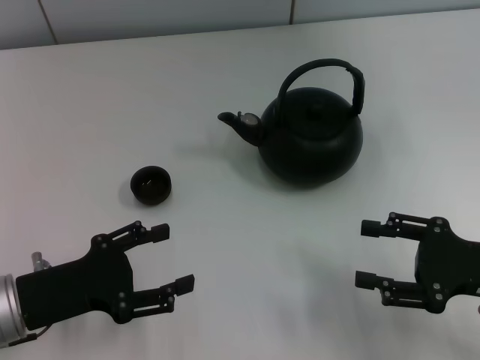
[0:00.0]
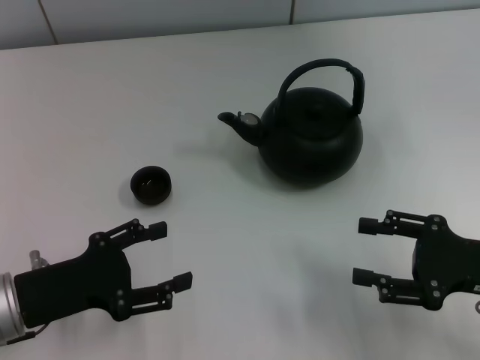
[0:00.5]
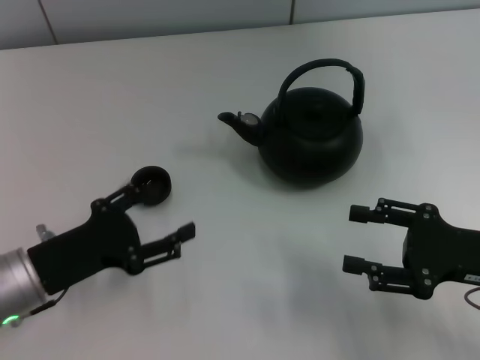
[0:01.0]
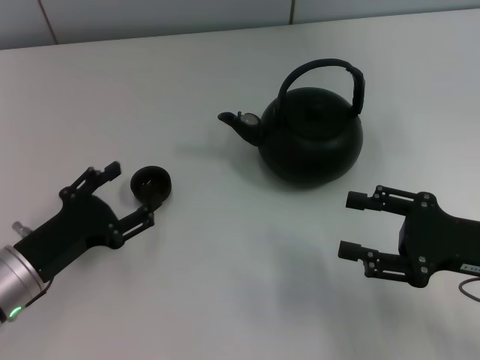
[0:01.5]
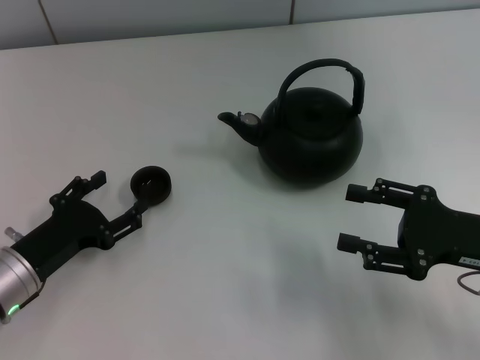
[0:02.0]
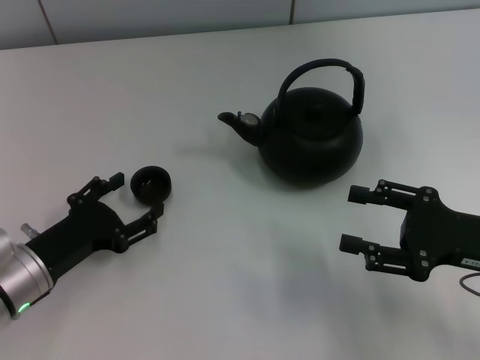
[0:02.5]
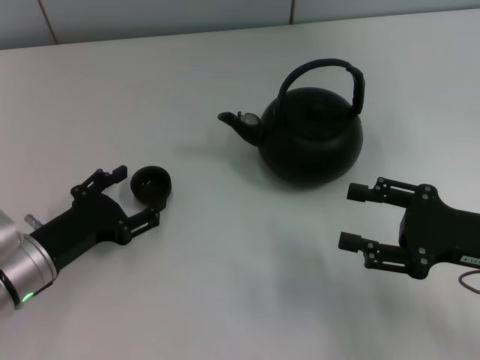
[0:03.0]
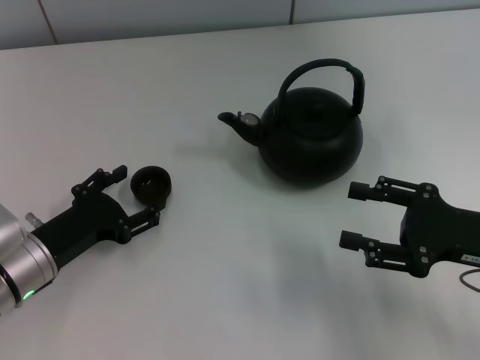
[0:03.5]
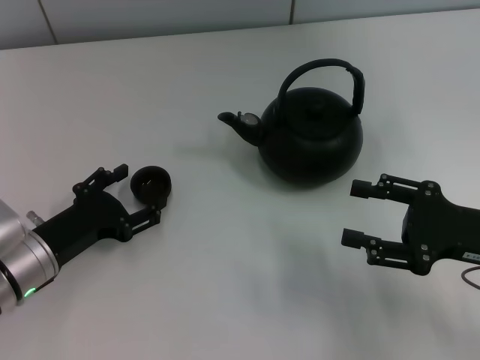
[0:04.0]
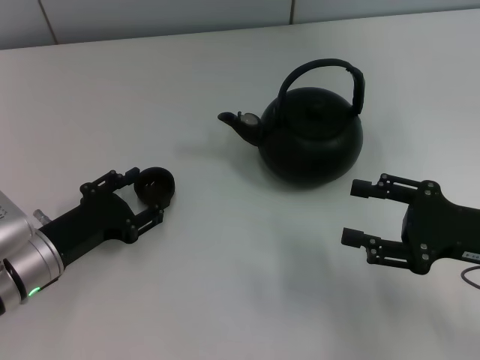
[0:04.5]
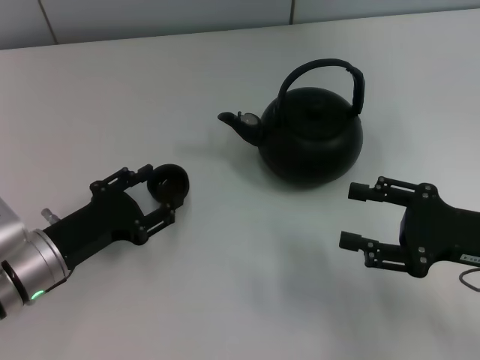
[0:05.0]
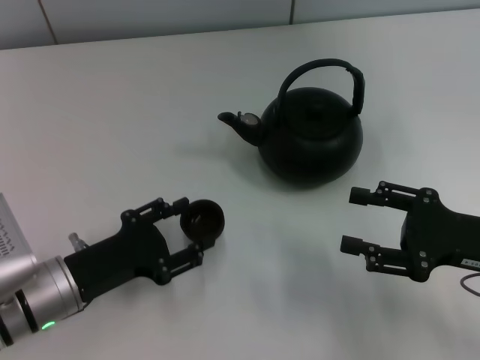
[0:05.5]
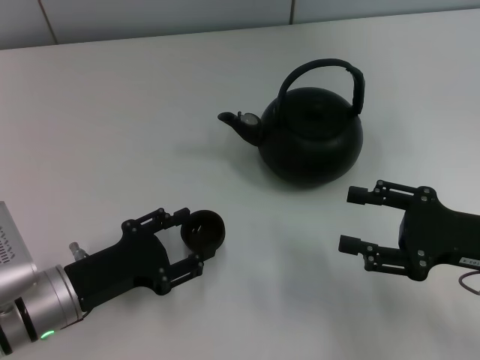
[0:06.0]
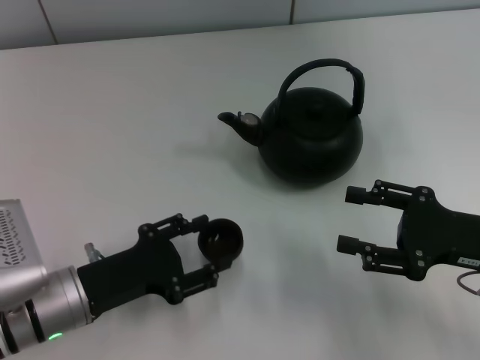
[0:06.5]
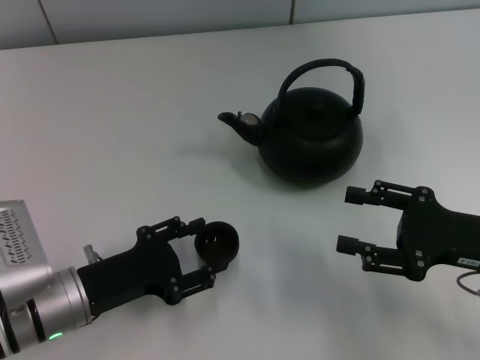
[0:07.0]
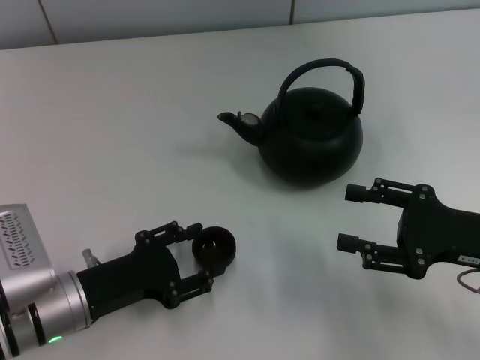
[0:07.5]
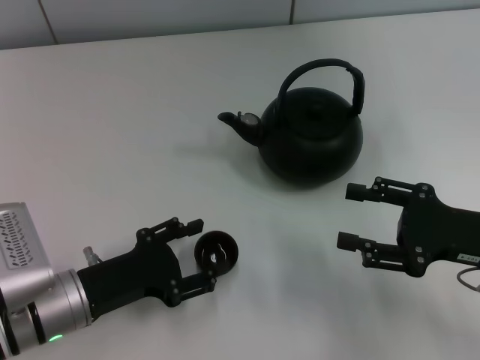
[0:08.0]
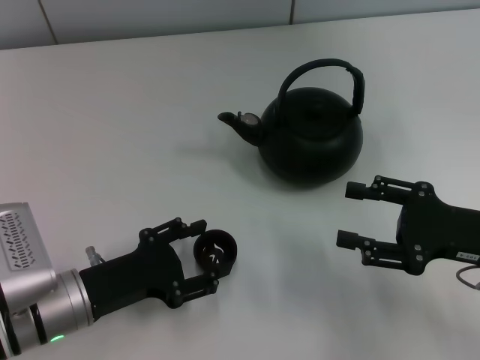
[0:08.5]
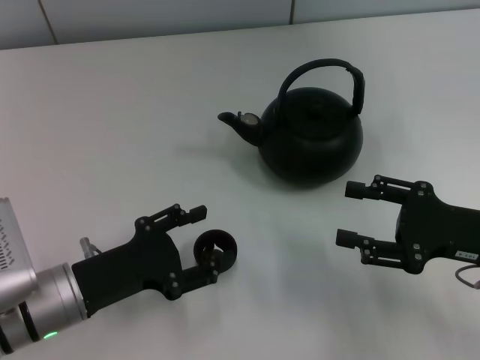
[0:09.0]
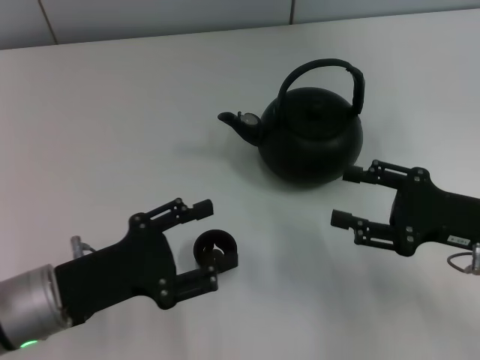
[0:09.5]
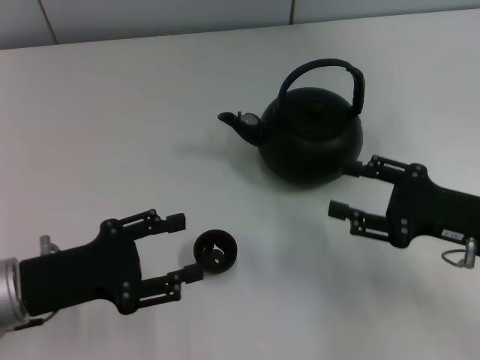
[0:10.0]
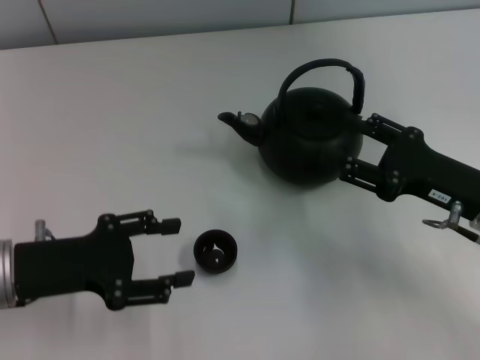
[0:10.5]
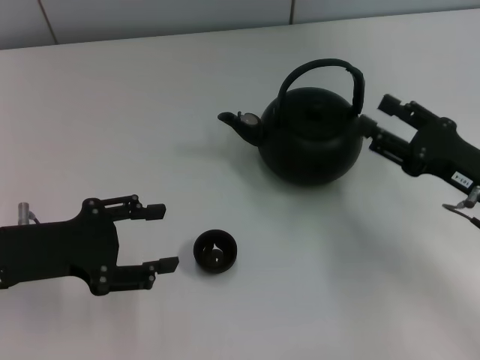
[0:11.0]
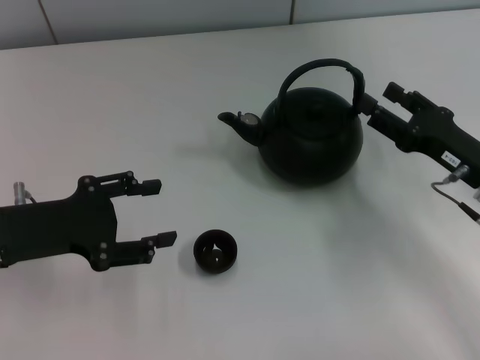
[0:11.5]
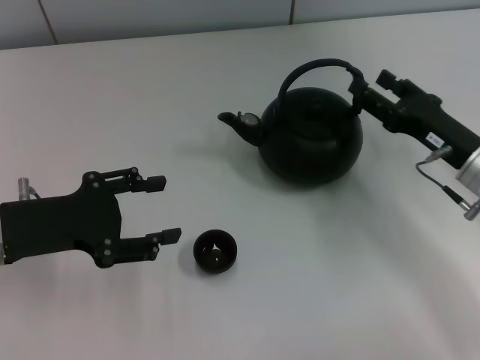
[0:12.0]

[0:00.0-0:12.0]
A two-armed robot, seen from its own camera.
Task of the whole recording: Grasp the handle of the teapot with one hand and pour tea into the teacup.
Step, 0:00.0 to 0:05.0: Pick up the teacup with the left gripper.
Step, 0:05.5 to 0:09.5: Place the teacup in the center of view with the left gripper.
0:00.0 to 0:02.0: The left gripper moves approximately 5 cm.
0:02.0 to 0:04.0: There are only small adjustments of the grippers.
0:04.0 to 0:06.0: The left gripper closes up.
0:06.0 to 0:08.0: The grippers make only small movements.
0:08.0 to 0:10.0: The left gripper shifts approximately 5 cm upward.
0:10.0 to 0:12.0: The left gripper shifts by roughly 5 cm. The right gripper shifts about 5 cm forward.

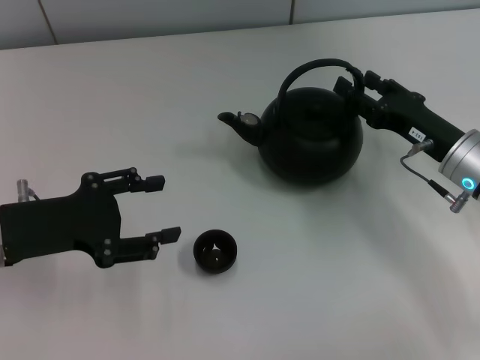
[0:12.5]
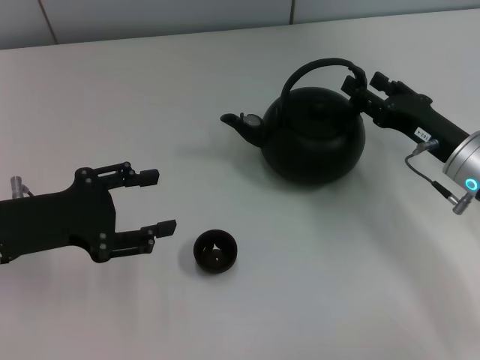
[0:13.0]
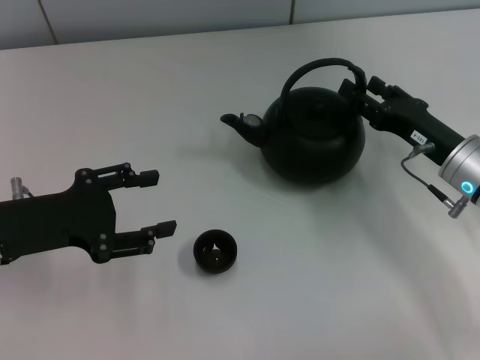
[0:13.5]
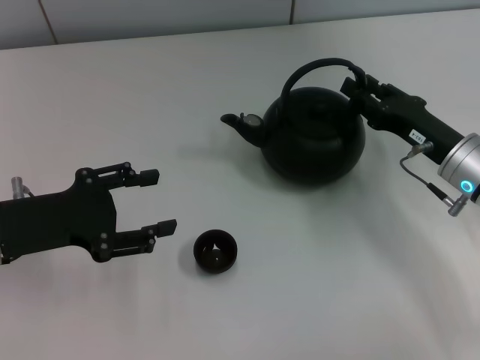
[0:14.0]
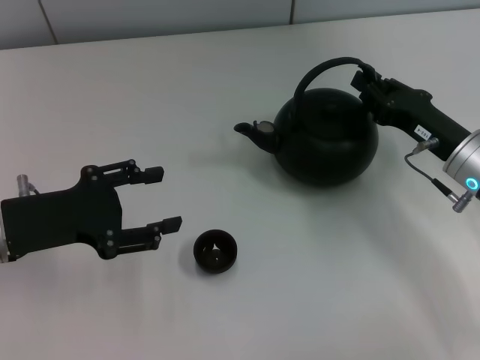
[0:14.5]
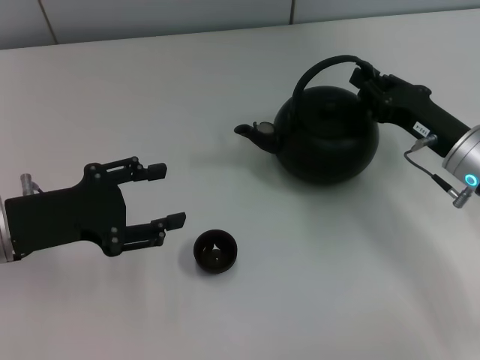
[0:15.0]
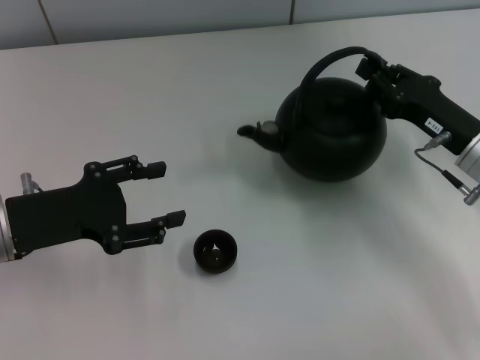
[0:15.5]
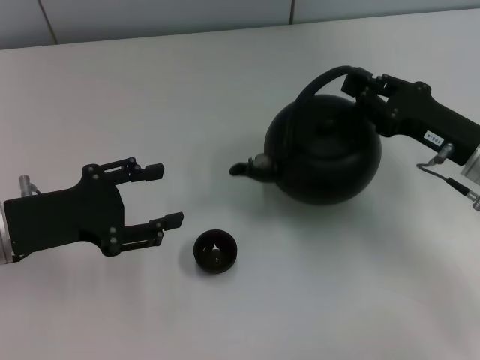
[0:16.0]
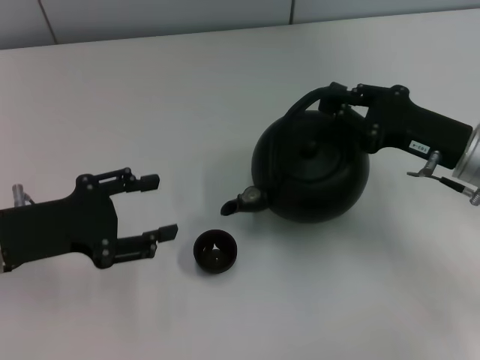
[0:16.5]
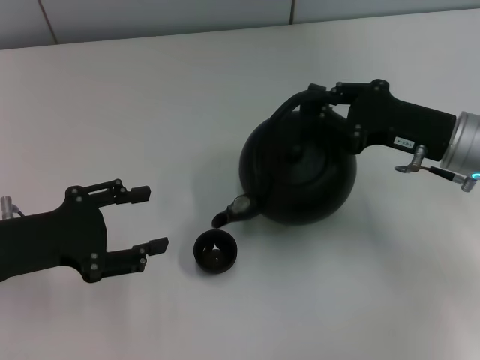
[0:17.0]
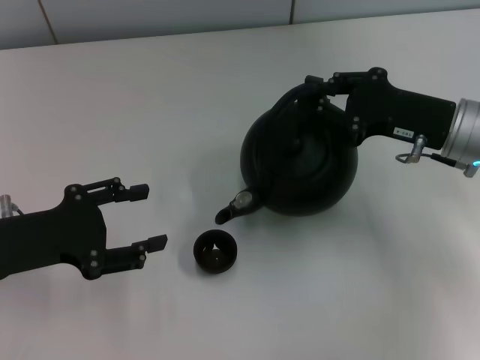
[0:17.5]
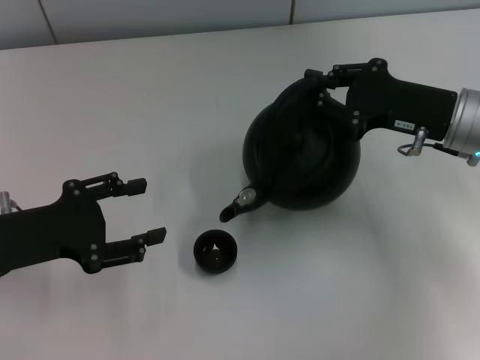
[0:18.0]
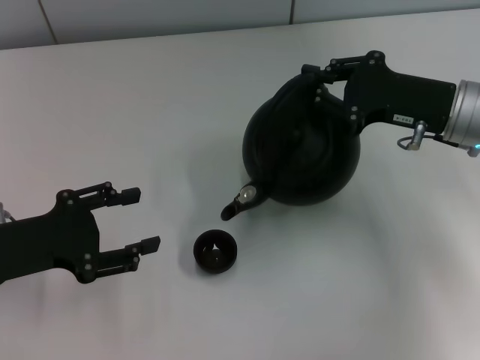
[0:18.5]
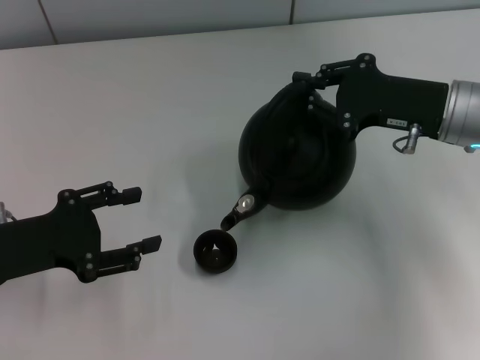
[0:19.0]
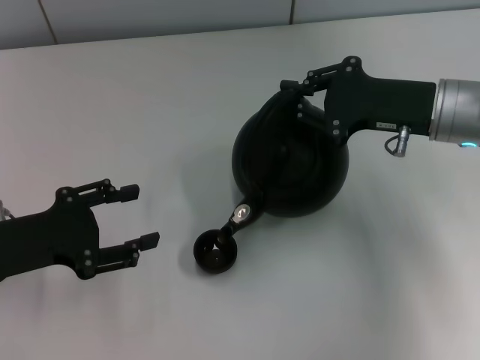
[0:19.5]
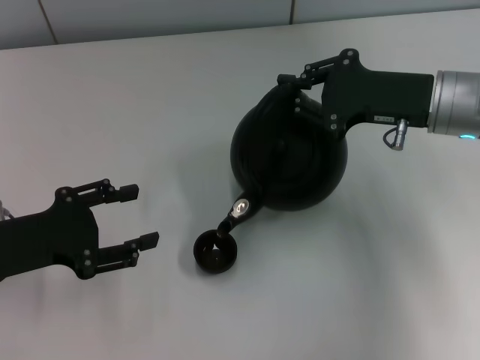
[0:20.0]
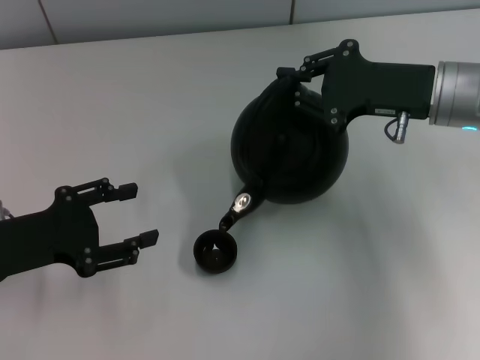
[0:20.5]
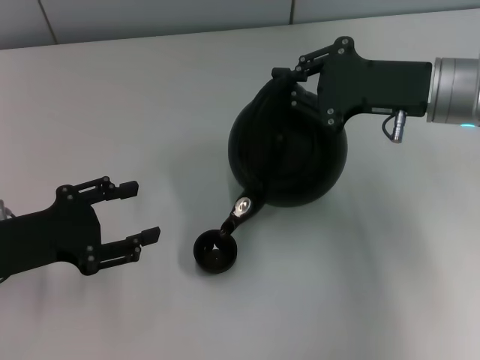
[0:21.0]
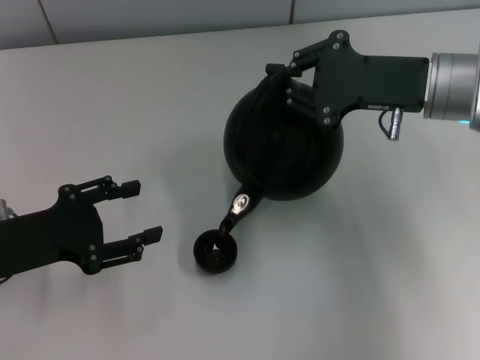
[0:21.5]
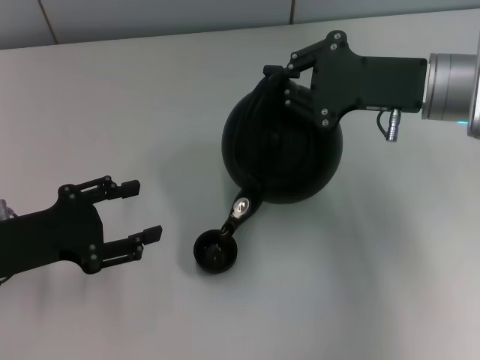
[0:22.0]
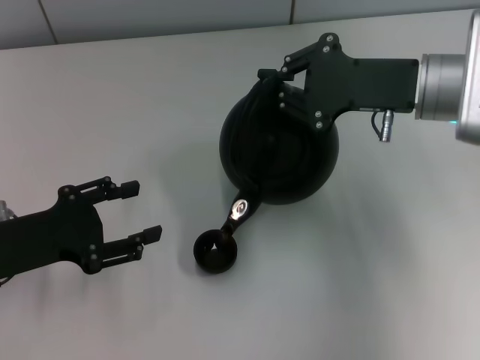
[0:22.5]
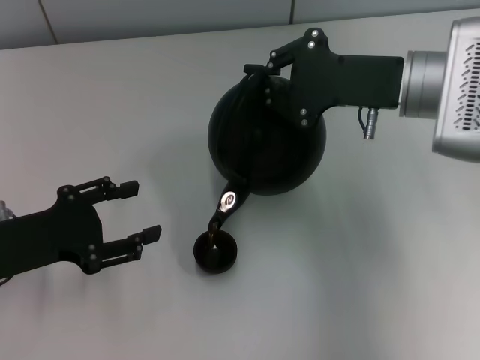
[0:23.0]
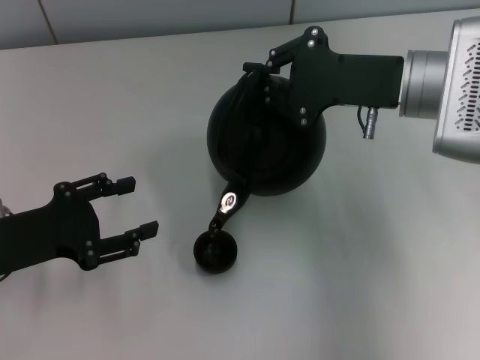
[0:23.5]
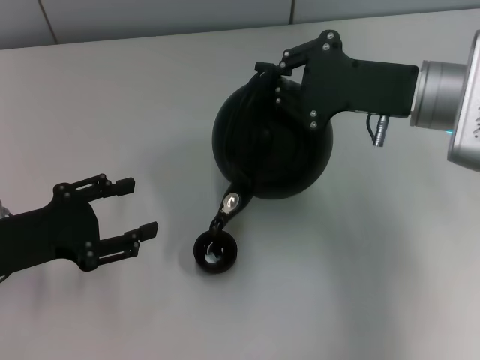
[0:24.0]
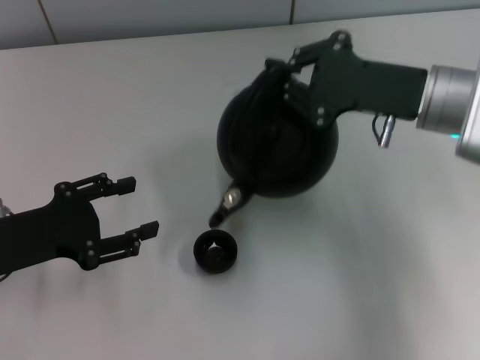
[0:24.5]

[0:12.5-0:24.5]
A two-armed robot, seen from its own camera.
Task of the whole recording: Grasp the handle of the teapot with one hand and pour tea into the teacup.
Step, 0:12.5 to 0:15.5: Pick up the teapot with the right gripper.
0:12.5 to 0:14.5: The right gripper closes its fingers.
0:16.5 to 0:18.5: The right gripper shifts by approximately 5 cm.
0:18.5 to 0:20.5: The grippers make only small movements.
0:20.5 to 0:22.5: The grippers move only a little.
0:22.5 to 0:24.5: The grippers stay close to where they were, moving slightly.

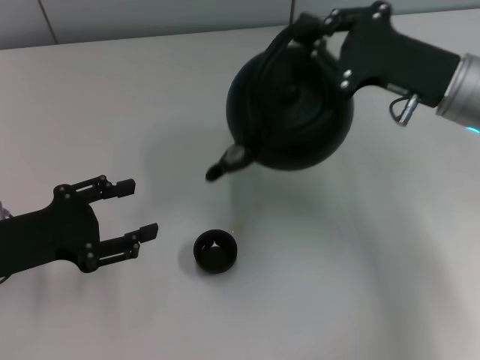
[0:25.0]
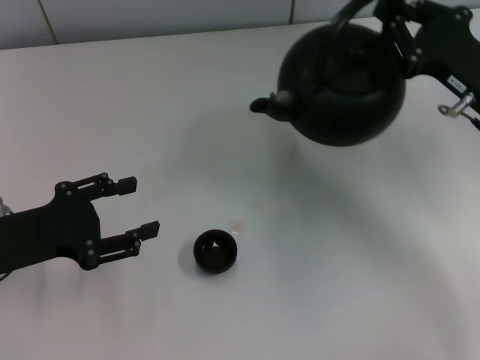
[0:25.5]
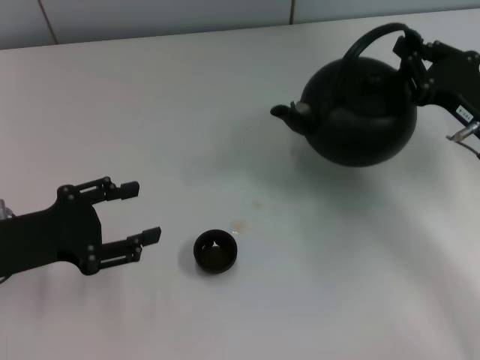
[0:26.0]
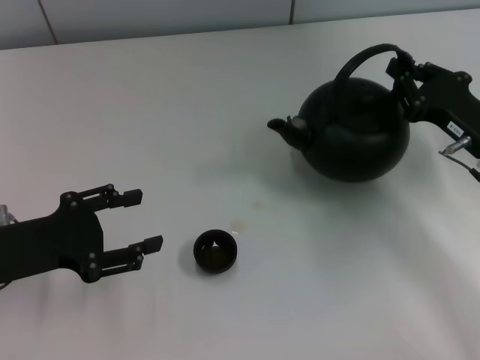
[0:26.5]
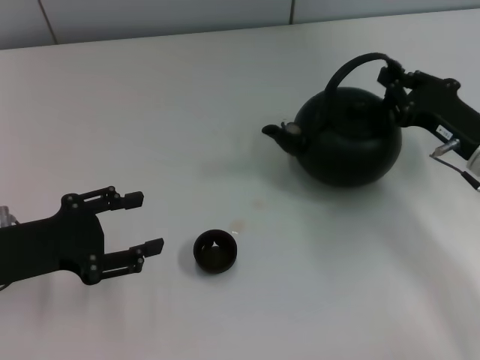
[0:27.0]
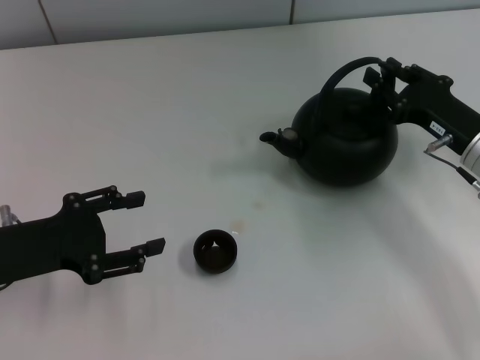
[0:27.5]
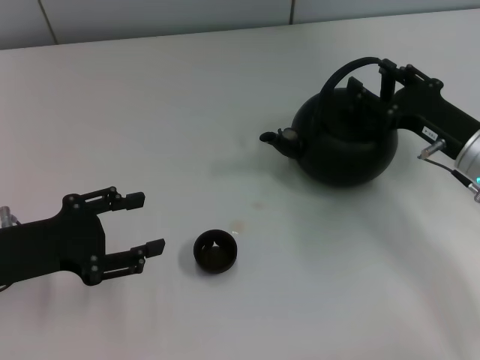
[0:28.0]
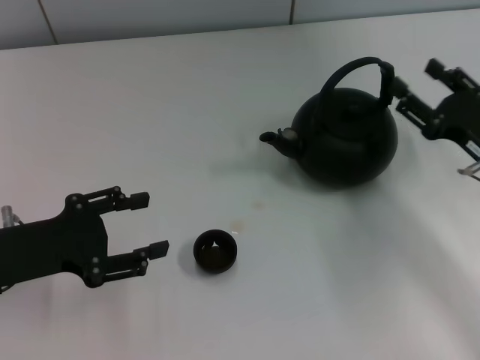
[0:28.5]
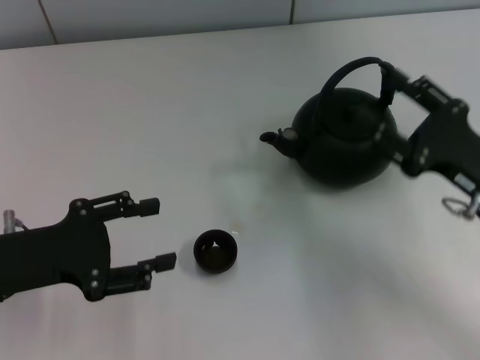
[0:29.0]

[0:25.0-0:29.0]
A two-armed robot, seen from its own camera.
Task of the whole recording: Grasp the handle of the teapot with one hand and pour tea into the teacup.
Step, 0:25.0 to 0:28.0: Put down the teapot with the right gripper.
0:25.0 to 0:27.0: The right gripper goes some 10 cm downward.
0:27.0 to 0:29.0: The right gripper moves backward, about 5 cm, and opens up.
